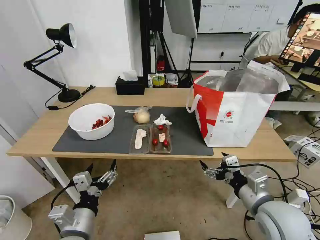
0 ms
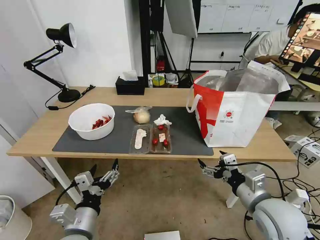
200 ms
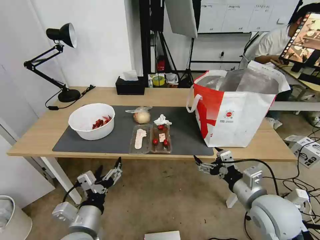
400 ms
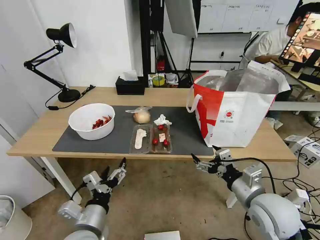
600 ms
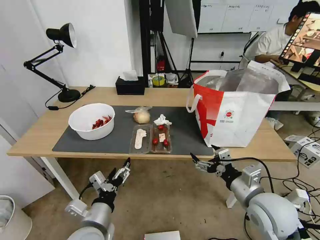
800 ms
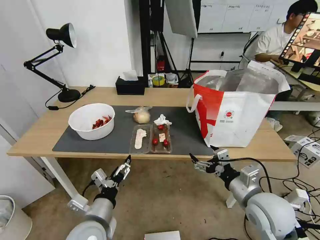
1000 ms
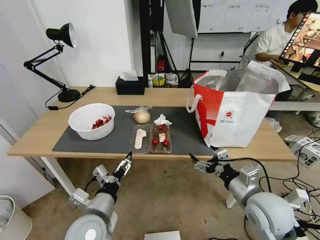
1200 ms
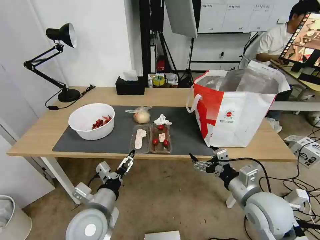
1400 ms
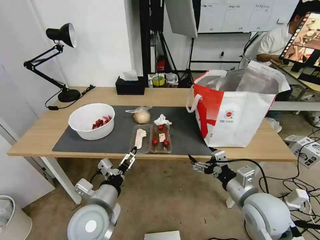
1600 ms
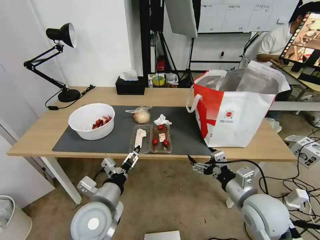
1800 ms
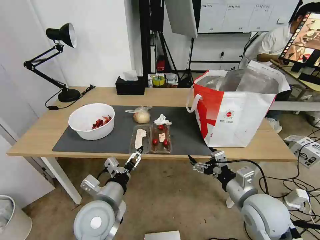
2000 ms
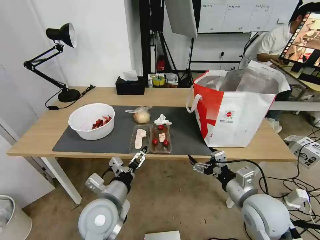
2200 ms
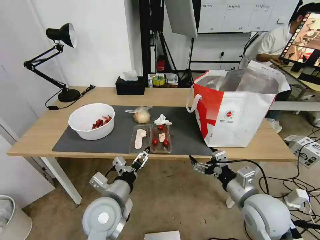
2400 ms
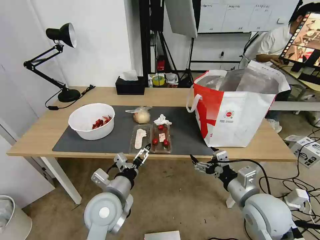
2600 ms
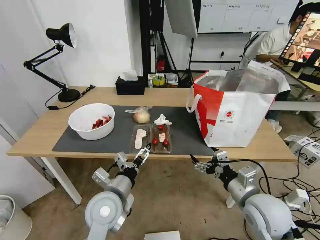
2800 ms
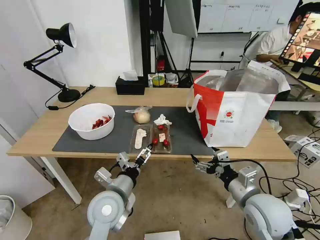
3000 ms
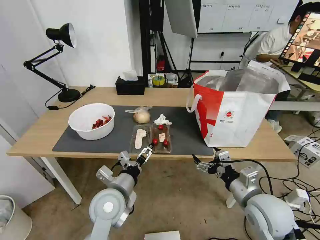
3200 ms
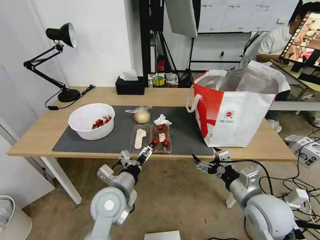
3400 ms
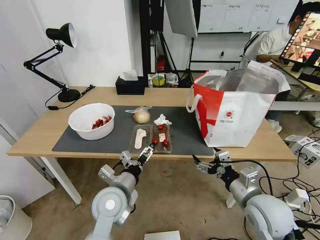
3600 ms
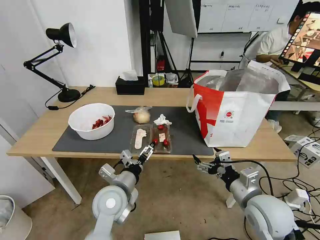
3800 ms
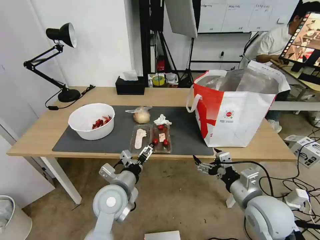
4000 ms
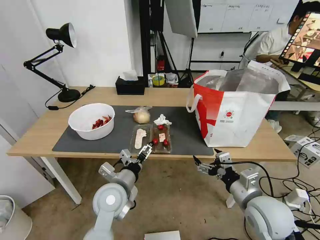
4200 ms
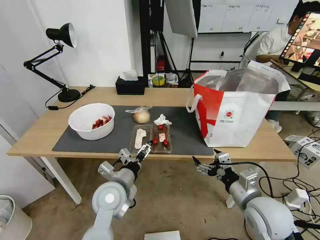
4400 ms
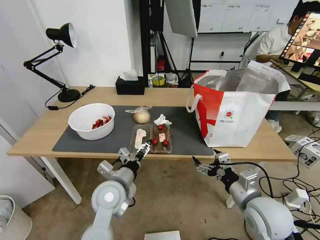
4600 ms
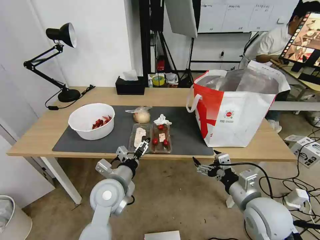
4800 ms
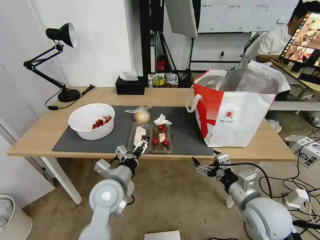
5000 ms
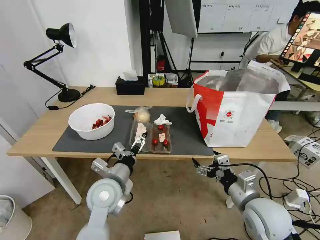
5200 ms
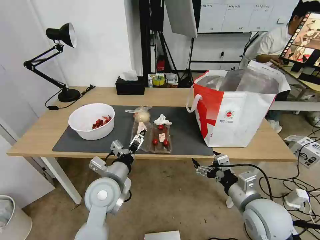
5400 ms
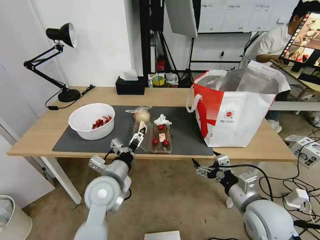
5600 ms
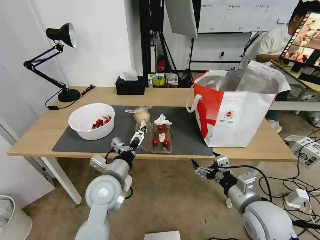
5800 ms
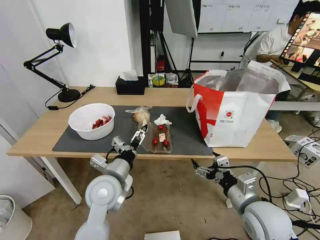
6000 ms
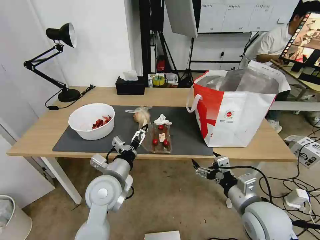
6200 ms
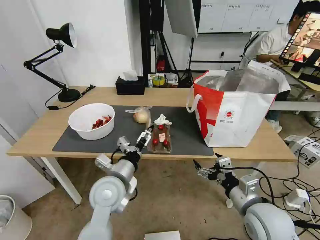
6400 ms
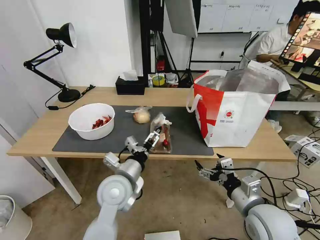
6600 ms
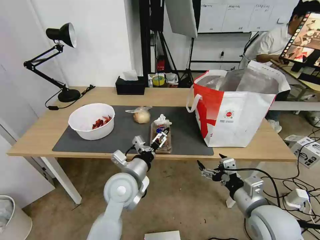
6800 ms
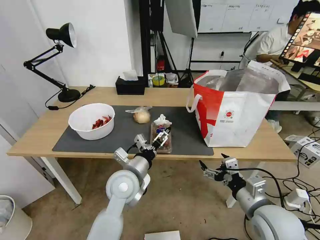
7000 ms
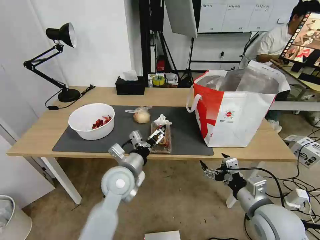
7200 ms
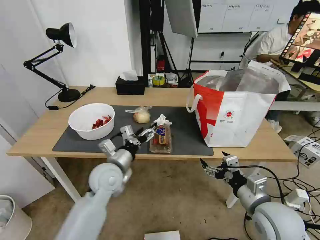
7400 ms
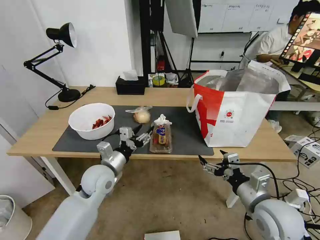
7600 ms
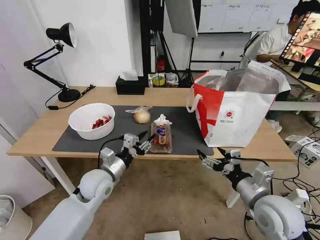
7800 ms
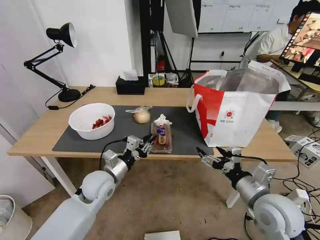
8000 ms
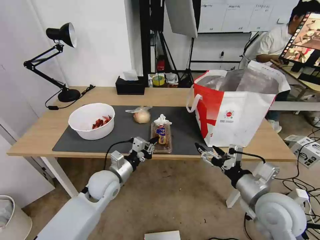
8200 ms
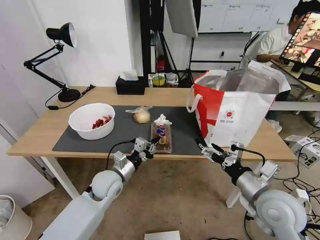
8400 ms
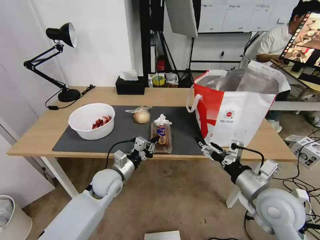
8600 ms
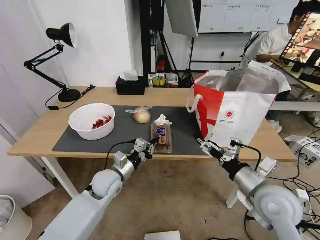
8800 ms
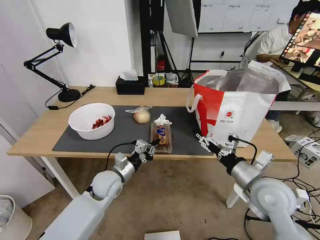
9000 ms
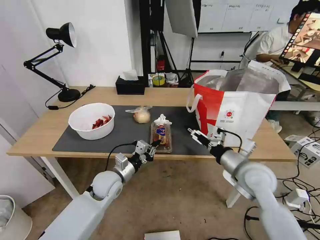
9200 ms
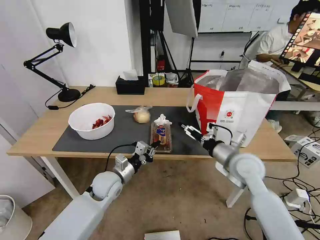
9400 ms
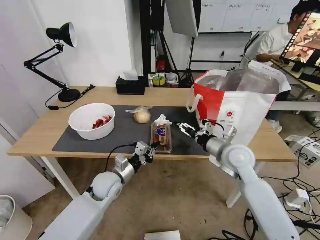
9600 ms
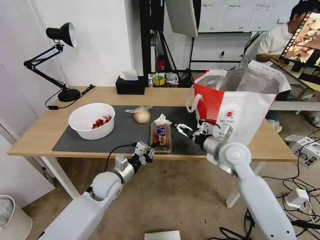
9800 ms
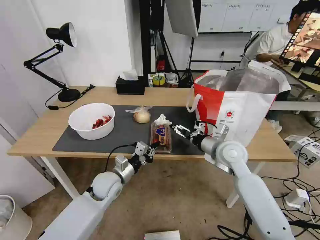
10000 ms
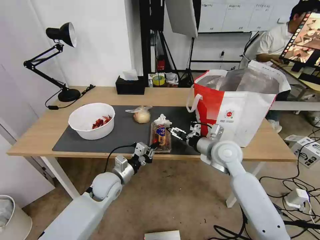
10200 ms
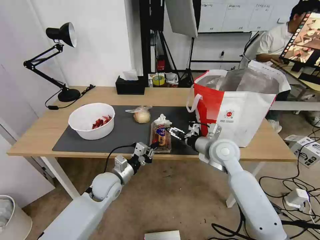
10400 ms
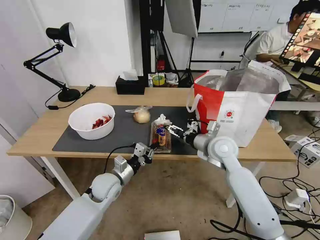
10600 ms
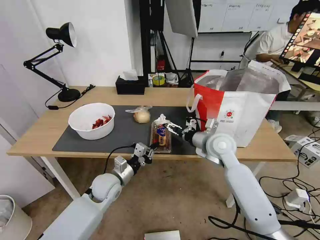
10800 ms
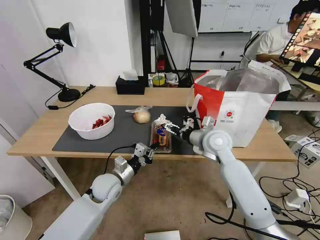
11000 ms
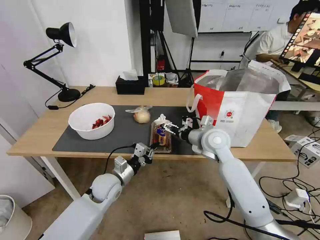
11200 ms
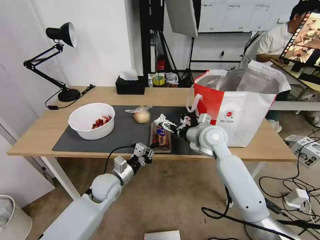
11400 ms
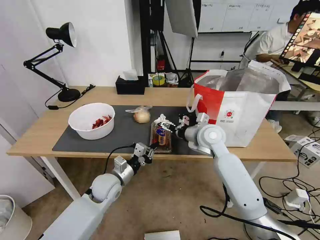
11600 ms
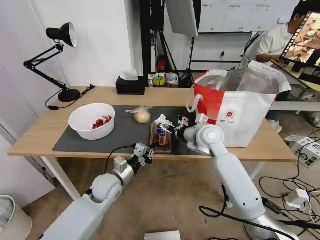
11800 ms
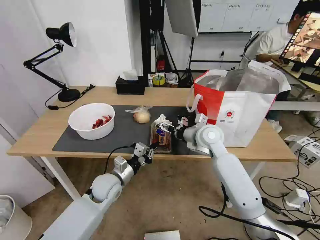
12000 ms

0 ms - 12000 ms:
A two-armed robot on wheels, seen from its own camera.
Task of the whole recording: Pick up the trash from the table and place it into the takeout bag.
0 ms - 1600 ms: The left gripper moves forward, about 5 cm.
1600 ms - 3000 ms: The left gripper changes place by some 5 cm.
3000 ms - 6000 ms: There are only small adjustments of the grippers.
6000 ms - 7600 ms: The left gripper travels forward by about 5 cm, and closes its fingers.
7600 ms - 9000 ms: The right gripper heads forward, covering roughly 5 cm. Meanwhile the left gripper goes approximately 5 cm downward, and closes up.
9000 ms - 10400 ms: The right gripper is displaced forward and to the left by roughly 15 cm.
10400 ms - 12000 ms: The right gripper changes place by some 5 cm.

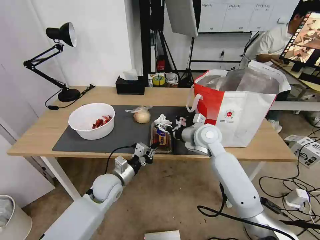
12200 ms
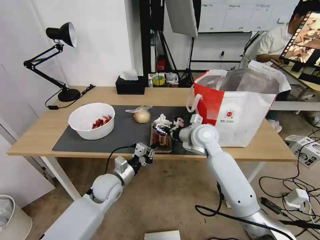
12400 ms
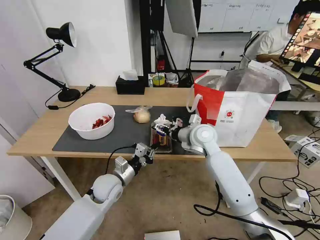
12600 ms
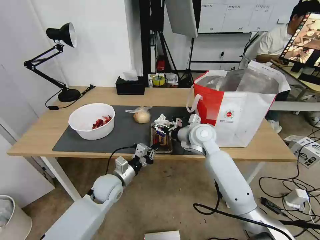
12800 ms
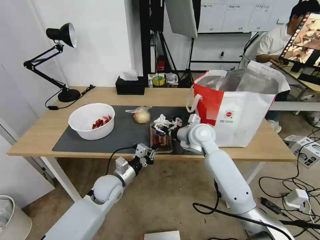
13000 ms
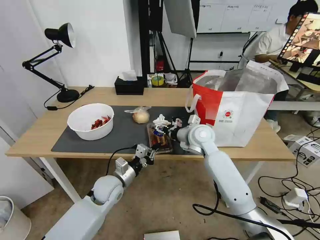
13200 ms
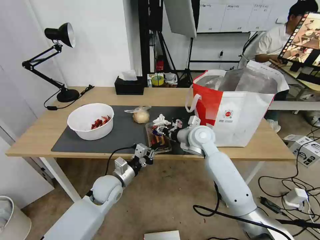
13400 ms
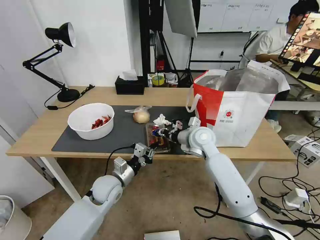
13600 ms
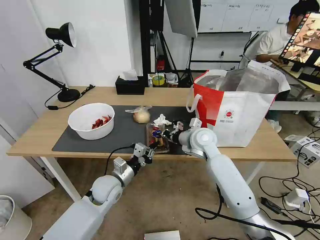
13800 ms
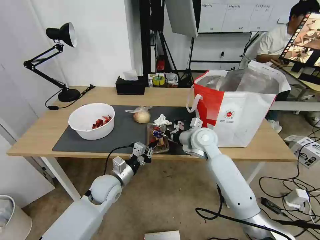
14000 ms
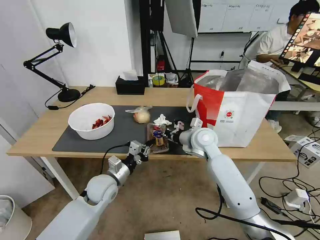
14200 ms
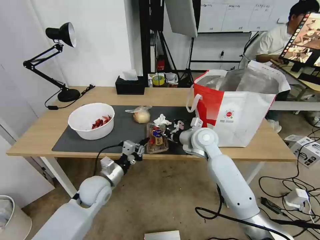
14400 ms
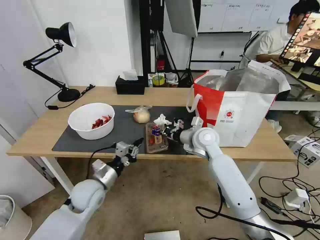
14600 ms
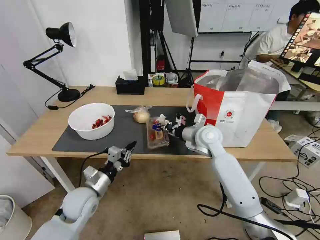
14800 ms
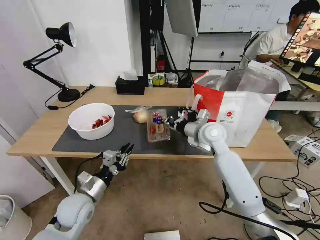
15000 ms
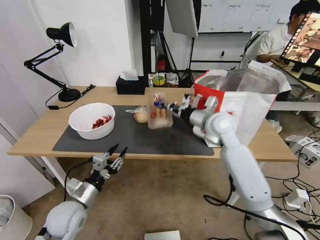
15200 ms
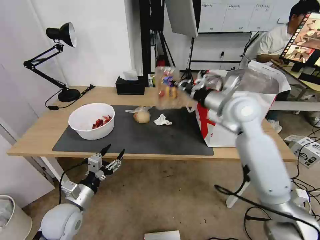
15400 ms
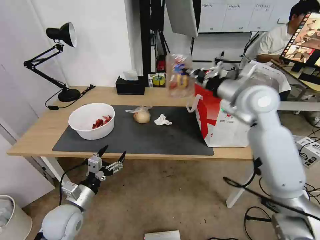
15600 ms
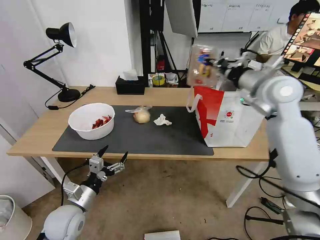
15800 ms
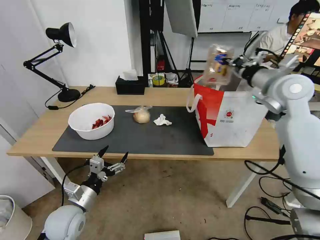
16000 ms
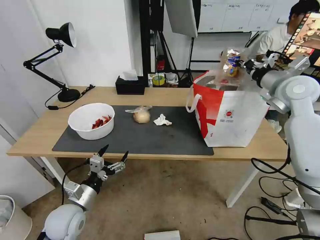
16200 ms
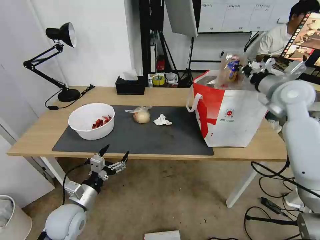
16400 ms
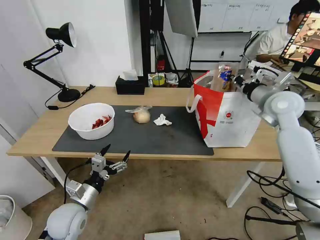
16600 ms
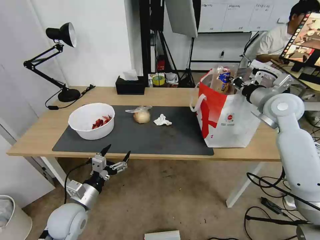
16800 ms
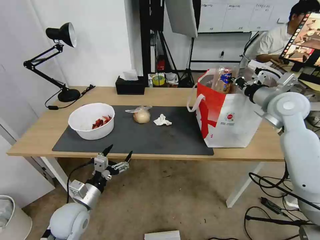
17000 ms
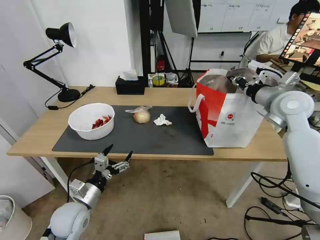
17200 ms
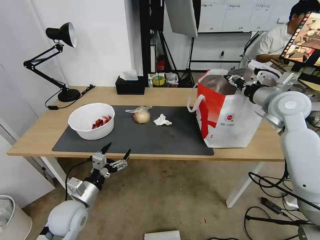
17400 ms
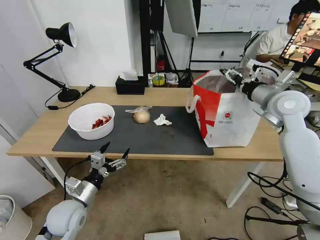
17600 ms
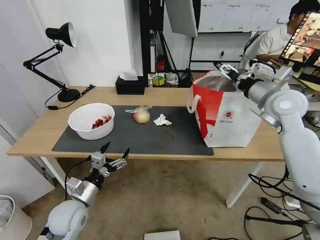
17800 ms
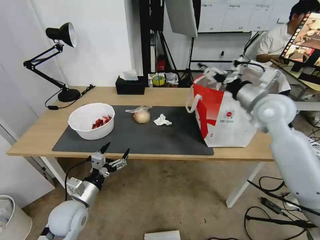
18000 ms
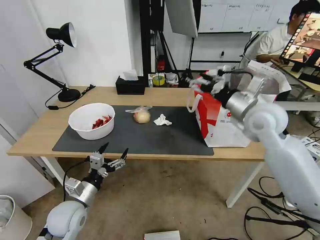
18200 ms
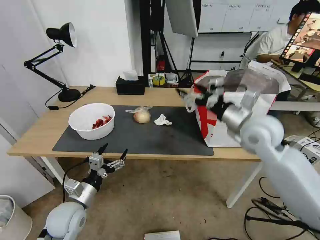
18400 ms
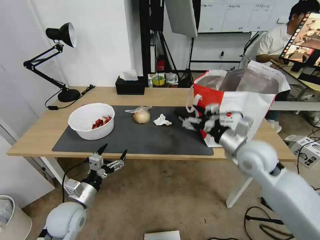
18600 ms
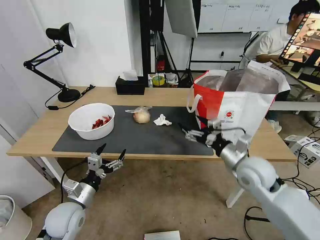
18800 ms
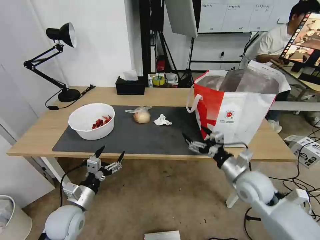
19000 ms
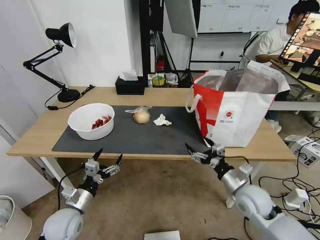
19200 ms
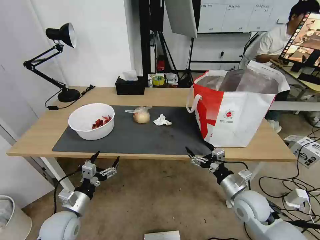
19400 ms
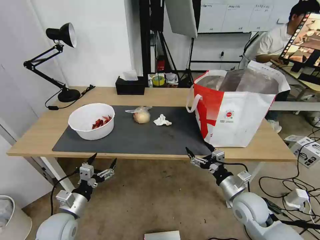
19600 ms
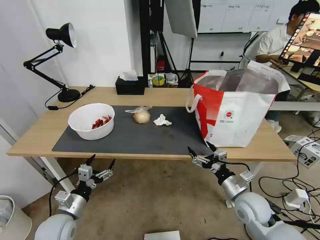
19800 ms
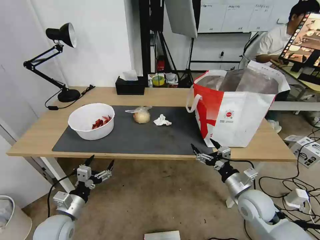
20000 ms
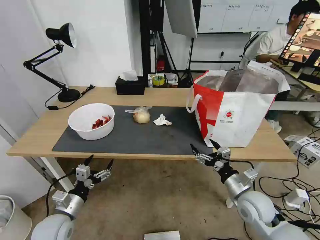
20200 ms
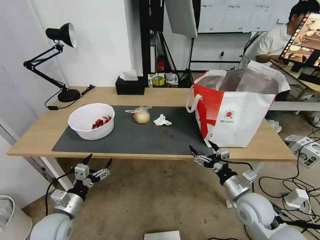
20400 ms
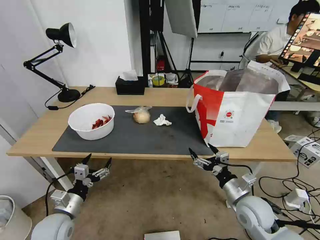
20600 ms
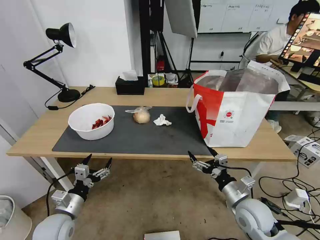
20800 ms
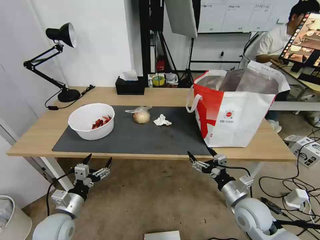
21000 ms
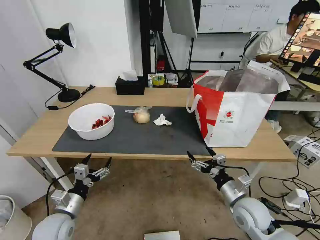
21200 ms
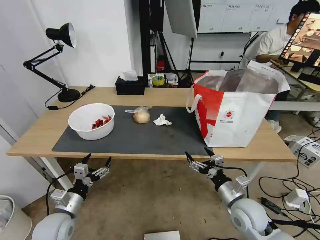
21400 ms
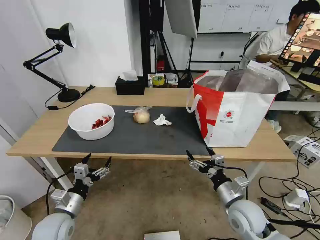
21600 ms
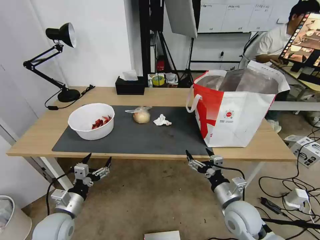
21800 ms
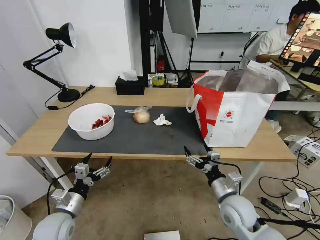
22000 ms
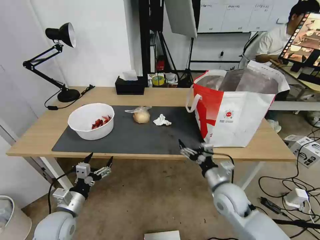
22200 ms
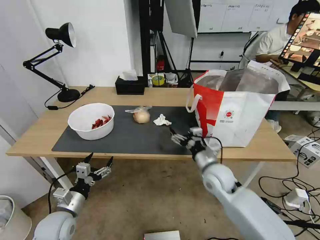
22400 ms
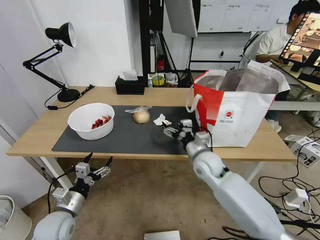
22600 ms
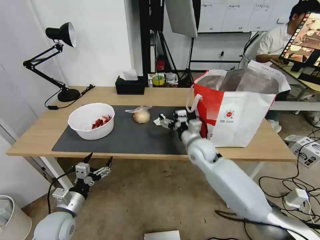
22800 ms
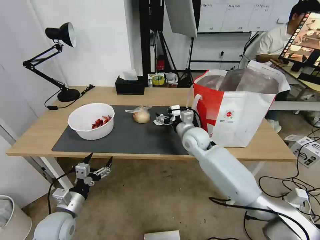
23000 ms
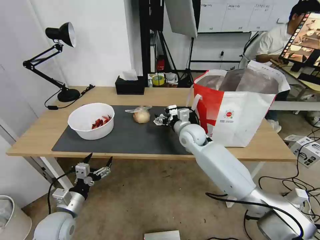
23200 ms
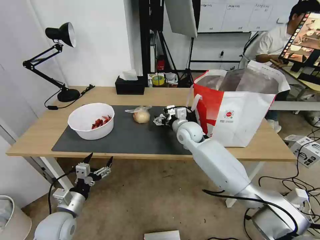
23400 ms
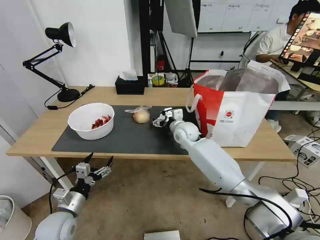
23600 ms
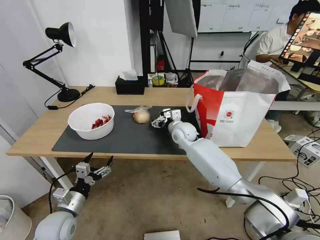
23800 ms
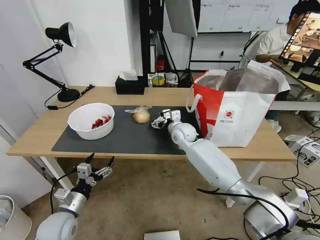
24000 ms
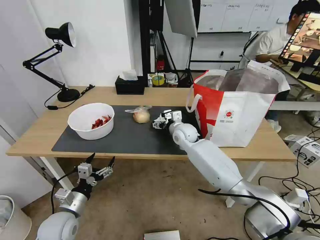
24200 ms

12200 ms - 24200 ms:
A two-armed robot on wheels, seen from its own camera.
Task of the whole recording: Pick up the trash from the table and place it into the takeout bag.
12200 ms - 13800 ms: The right gripper closes its fingers.
13800 ms - 15200 ms: The left gripper moves to the left and backward, about 15 cm, and opens. The right gripper heads upward, covering roughly 5 cm.
15200 ms - 16600 ms: The right gripper travels to the right by some 15 cm; the left gripper opens its fingers.
16600 ms - 18200 ms: The right gripper is displaced to the left and backward by approximately 10 cm, and opens its fingers.
18200 ms - 19800 ms: The right gripper goes some 30 cm downward and backward, while the left gripper ends up roughly 5 cm from where it was.
19800 ms - 21200 ms: The grippers make only small movements.
21200 ms - 22600 ms: The right gripper is displaced forward and to the left by some 15 cm.
22600 ms - 24200 ms: The right gripper travels forward and to the left by approximately 15 cm.
